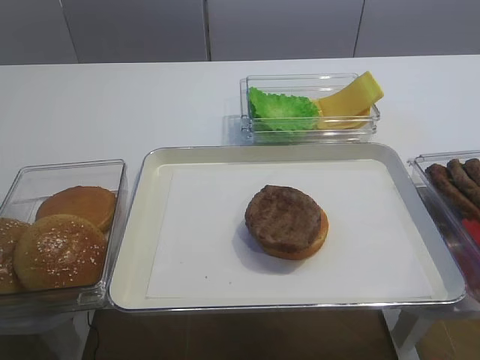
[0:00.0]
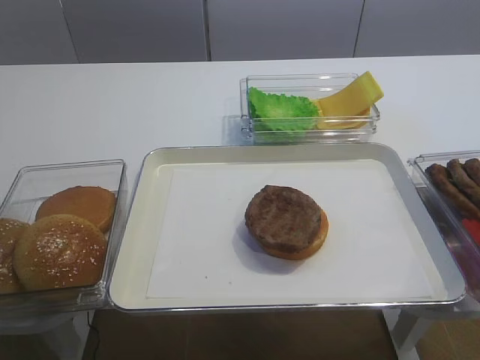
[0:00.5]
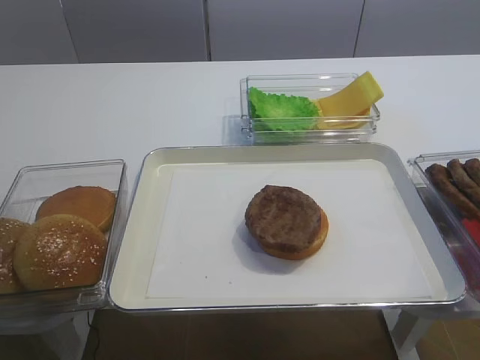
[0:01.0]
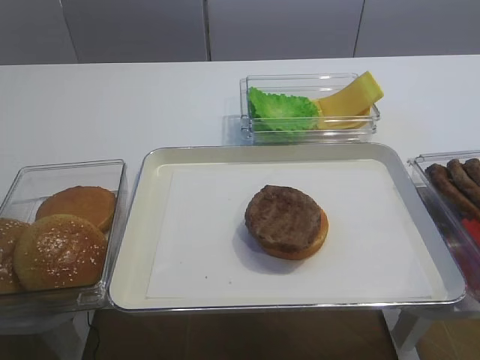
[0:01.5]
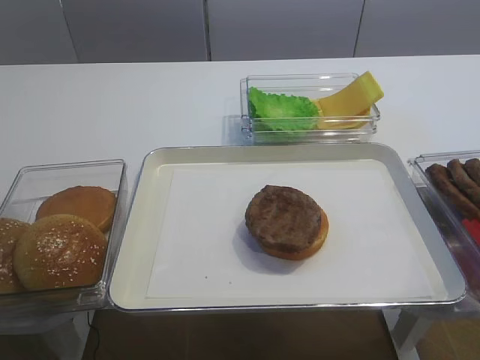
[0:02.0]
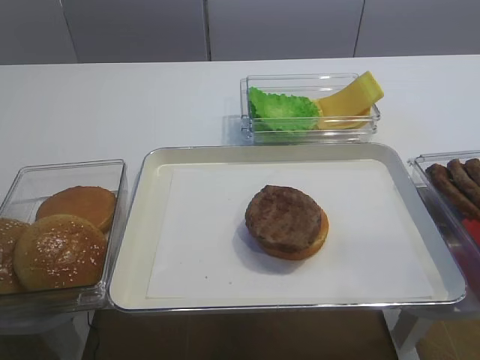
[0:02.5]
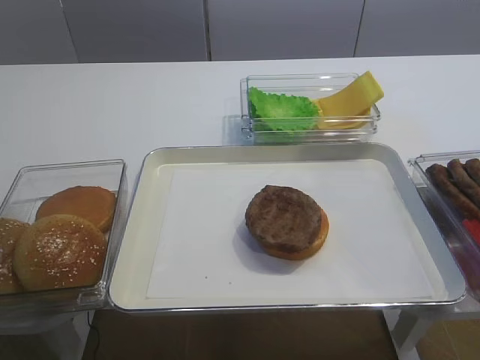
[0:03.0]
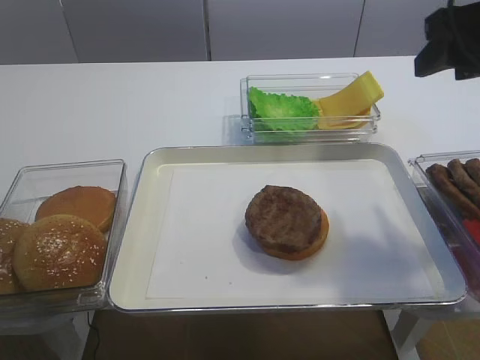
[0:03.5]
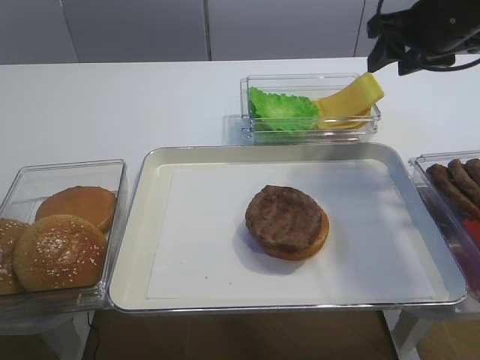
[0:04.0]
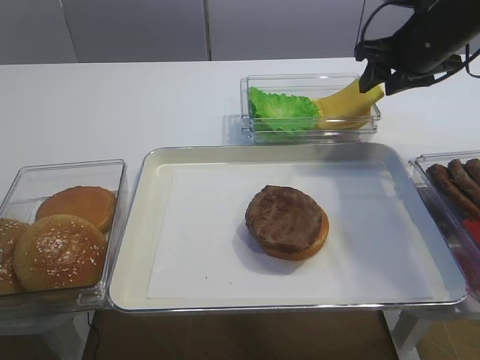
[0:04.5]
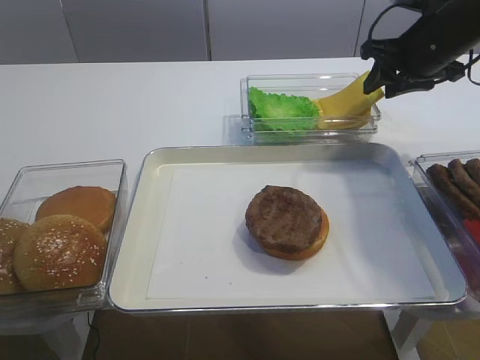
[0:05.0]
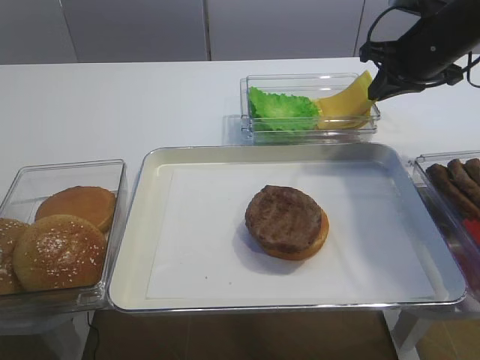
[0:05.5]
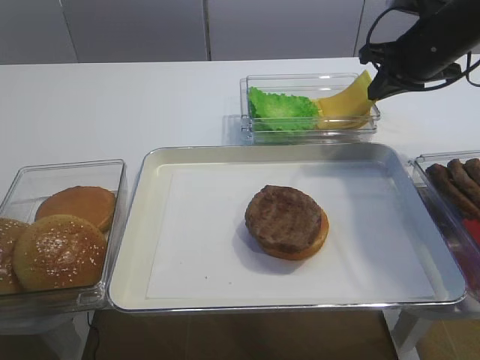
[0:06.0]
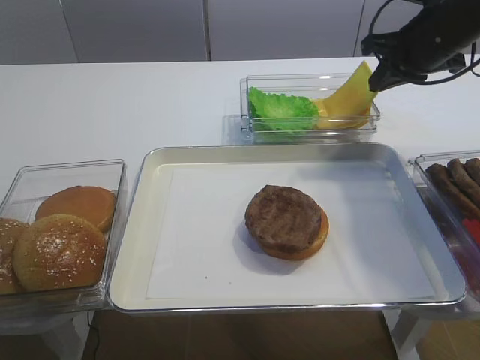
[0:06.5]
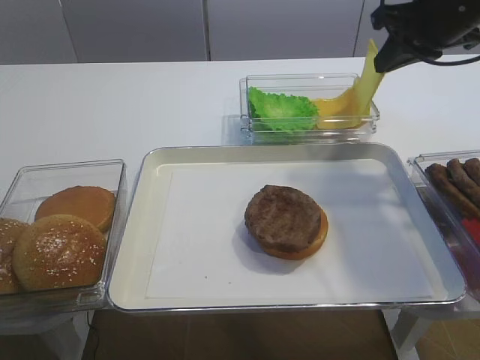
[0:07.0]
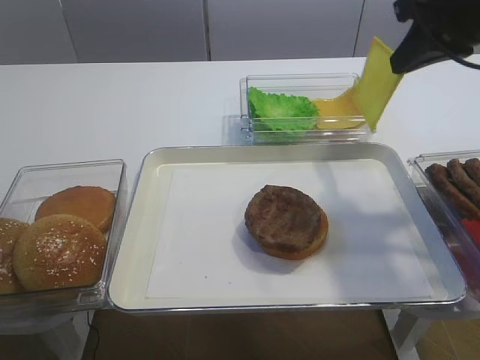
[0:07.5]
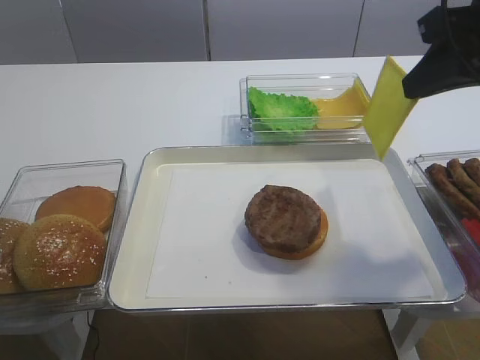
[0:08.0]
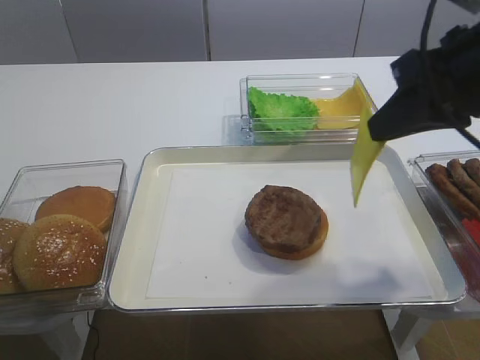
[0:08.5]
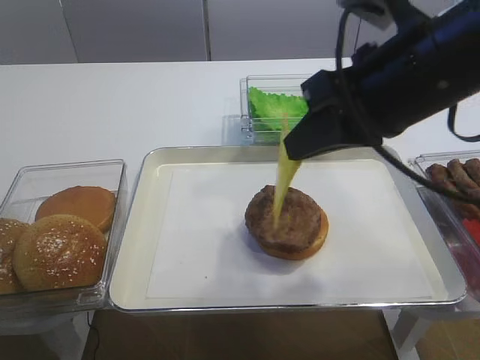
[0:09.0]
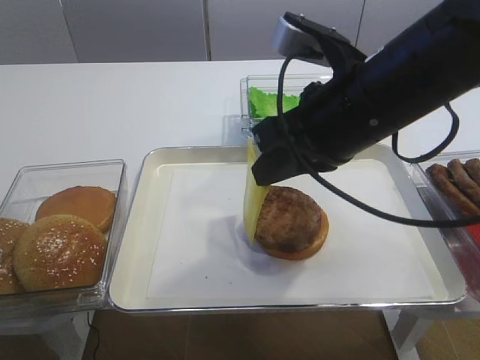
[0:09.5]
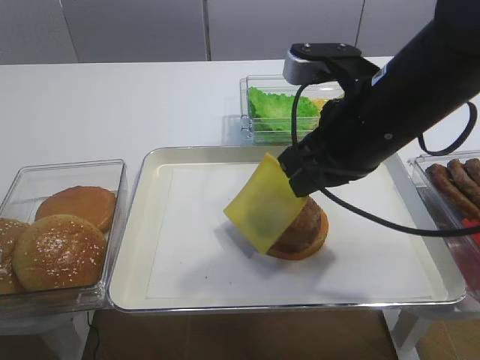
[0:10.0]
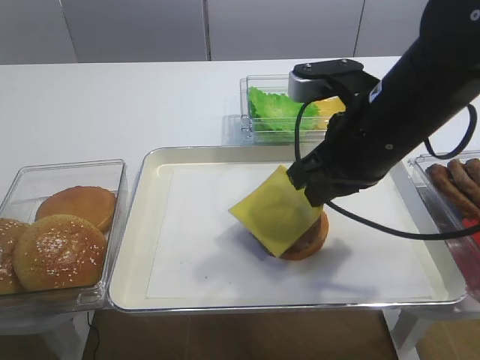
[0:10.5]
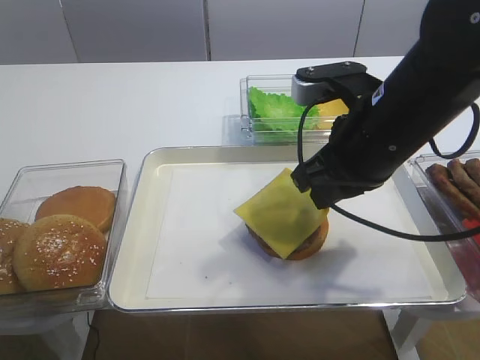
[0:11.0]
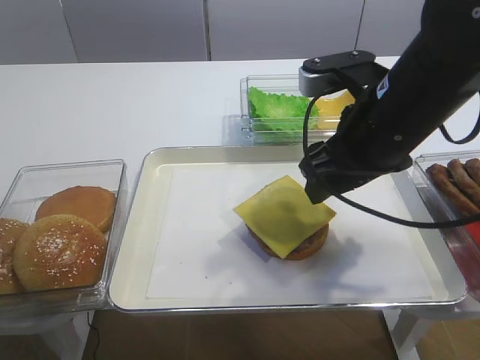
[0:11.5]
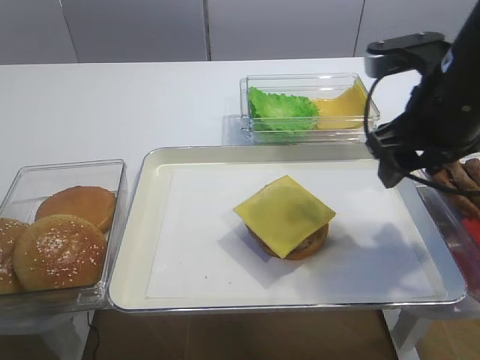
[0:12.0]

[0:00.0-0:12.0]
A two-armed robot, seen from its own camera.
Step, 0:00.0 to 0:06.0: Pick up the cheese slice with the right gripper.
Step, 0:07.0 to 0:11.0: Place the cheese slice on the cutlet with the right gripper.
0:02.0 to 0:04.0: The right gripper shifts approximately 40 cm forward.
0:04.0 to 0:06.0: The right gripper moves approximately 5 cm, and closes.
0:06.0 to 0:08.0: The right gripper travels backward and upward by some 15 cm.
0:08.0 to 0:10.0: The right gripper goes roughly 15 cm to the left and downward.
0:10.0 to 0:12.0: The right gripper moves to the right, some 10 cm, and opens its fingers.

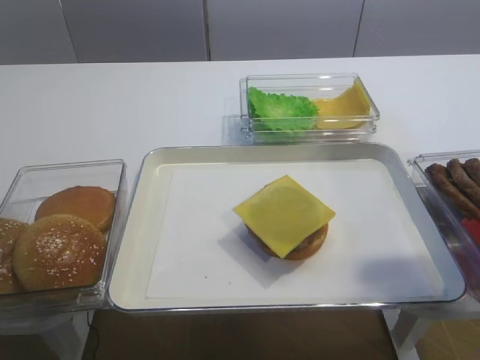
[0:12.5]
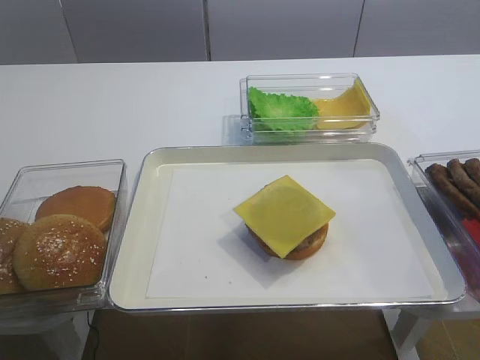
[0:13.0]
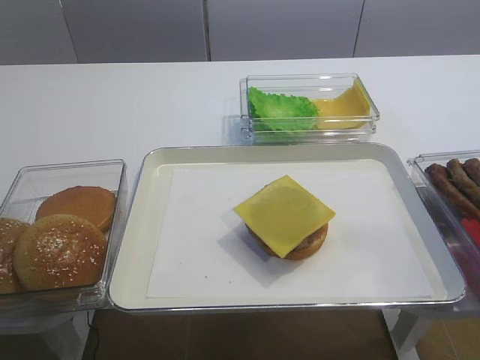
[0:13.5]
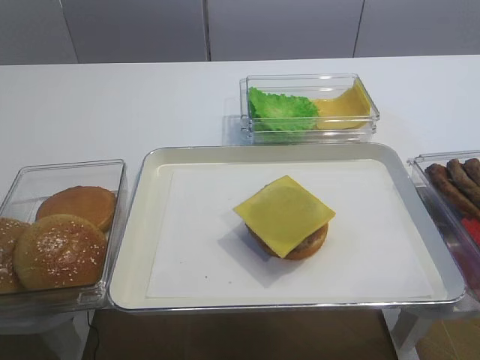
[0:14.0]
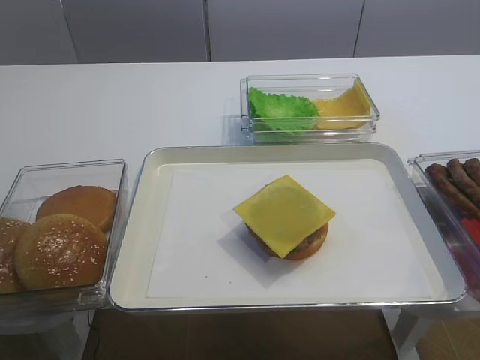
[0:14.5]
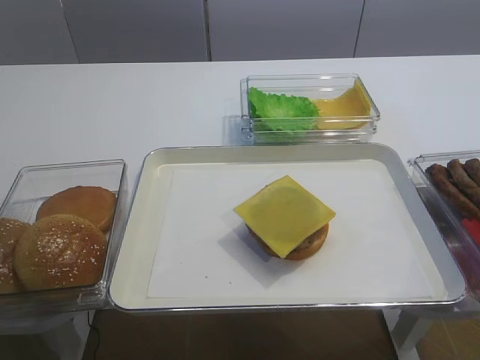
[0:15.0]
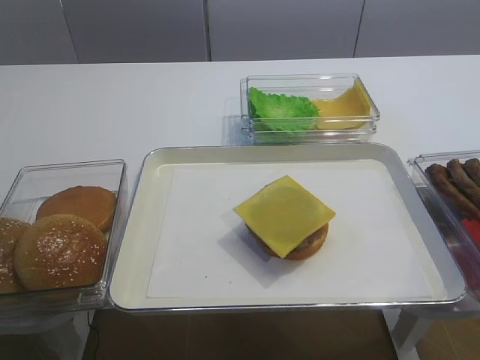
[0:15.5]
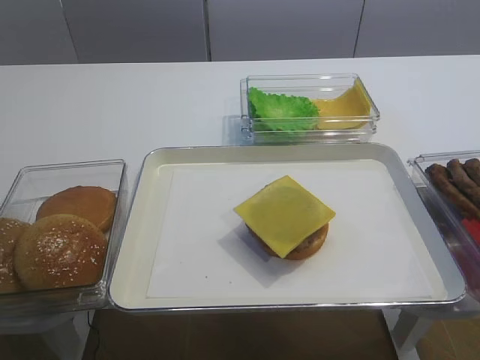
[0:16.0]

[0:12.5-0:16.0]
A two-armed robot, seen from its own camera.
0:12.5 to 0:14.5: The right gripper is displaced backward by some 25 cm.

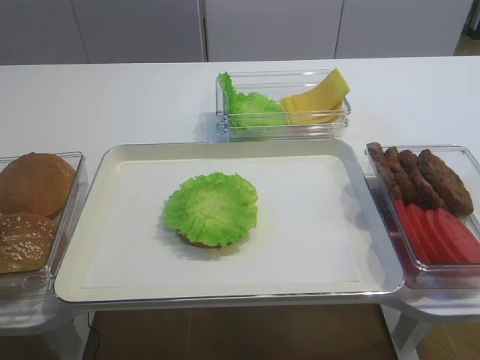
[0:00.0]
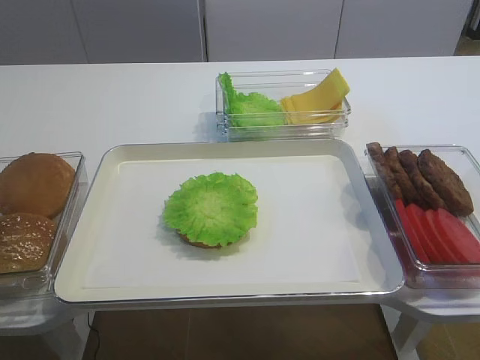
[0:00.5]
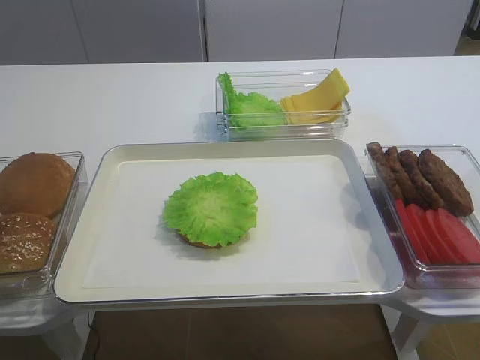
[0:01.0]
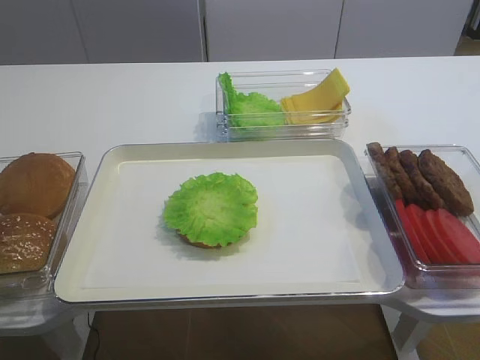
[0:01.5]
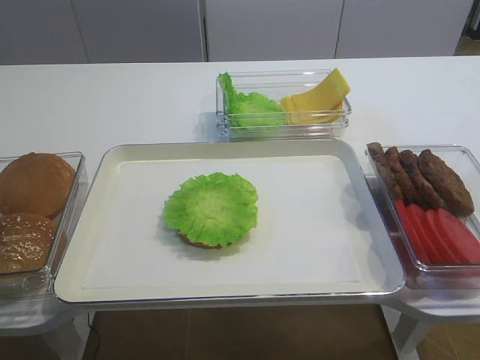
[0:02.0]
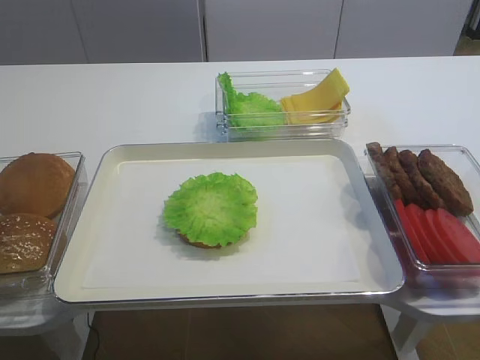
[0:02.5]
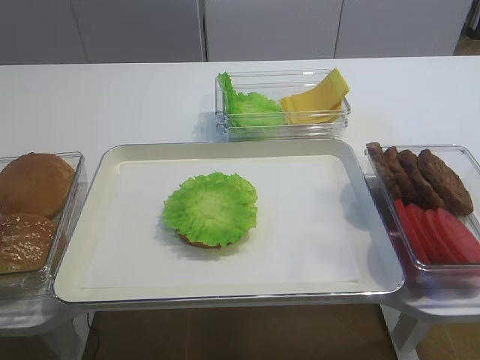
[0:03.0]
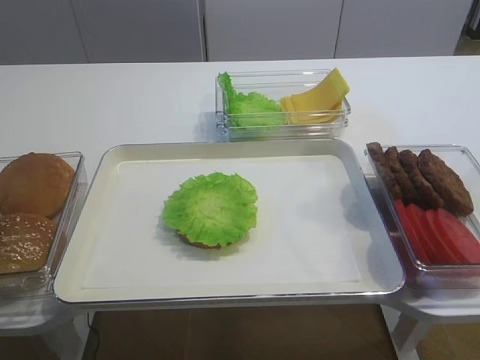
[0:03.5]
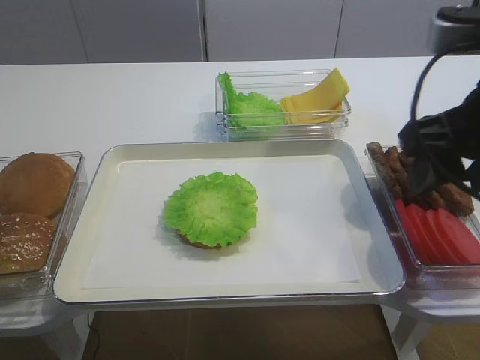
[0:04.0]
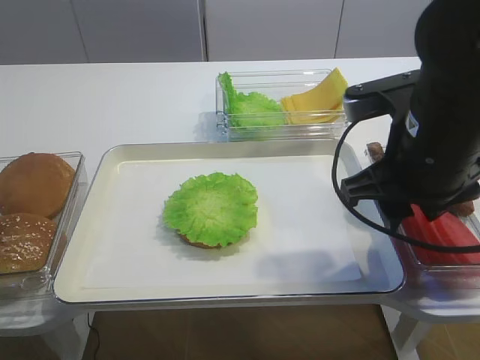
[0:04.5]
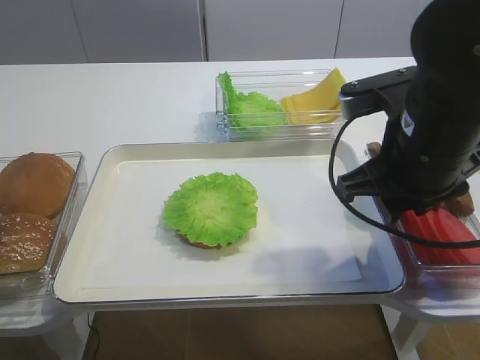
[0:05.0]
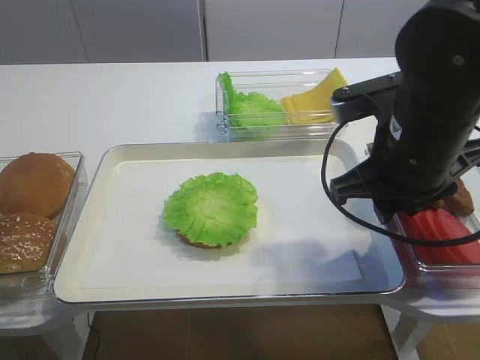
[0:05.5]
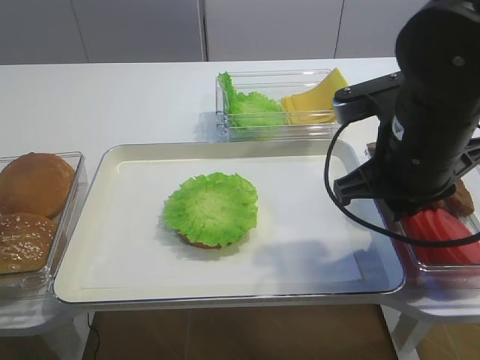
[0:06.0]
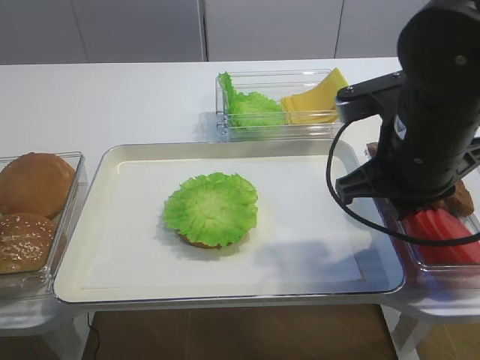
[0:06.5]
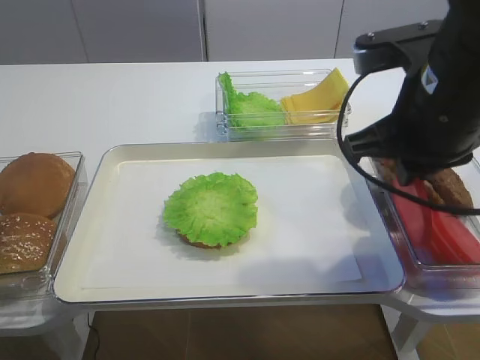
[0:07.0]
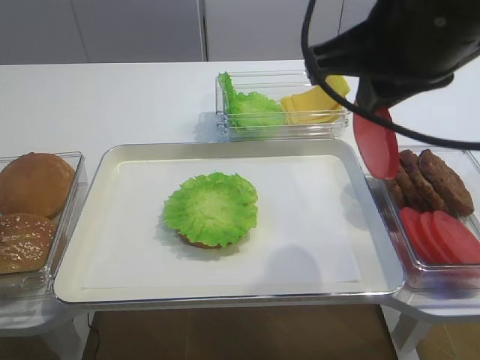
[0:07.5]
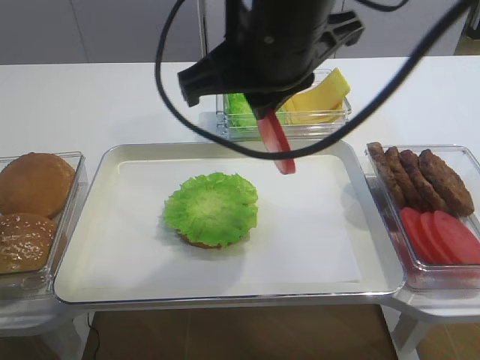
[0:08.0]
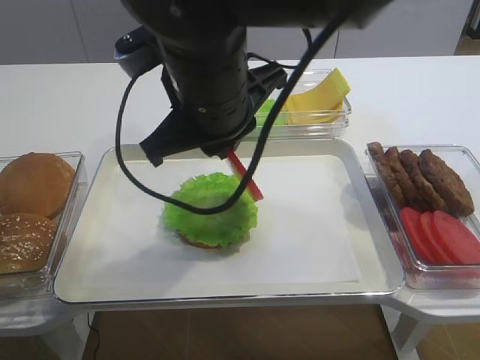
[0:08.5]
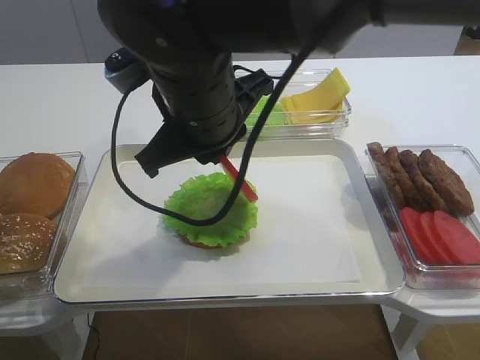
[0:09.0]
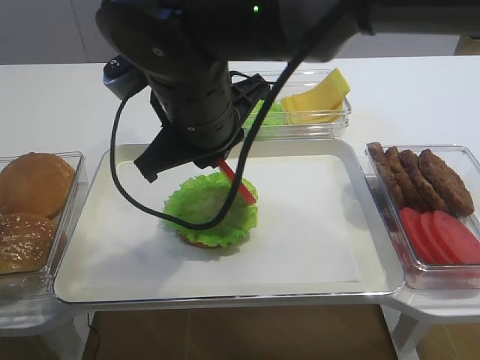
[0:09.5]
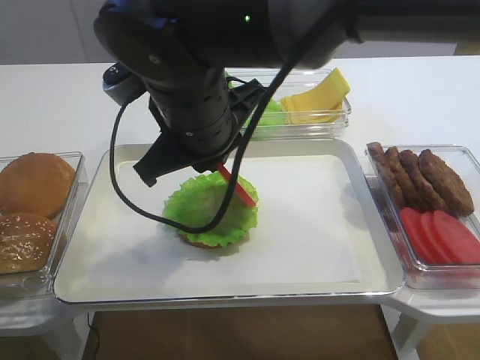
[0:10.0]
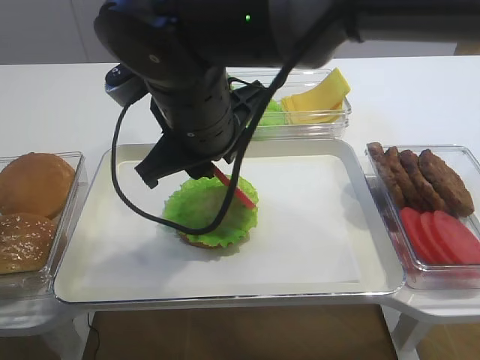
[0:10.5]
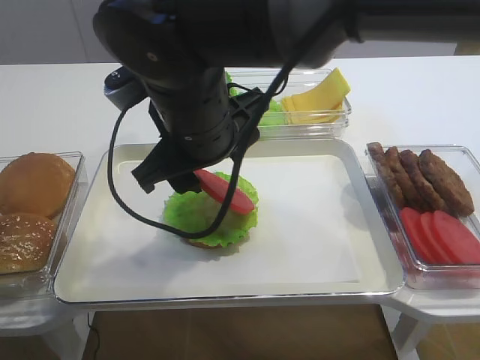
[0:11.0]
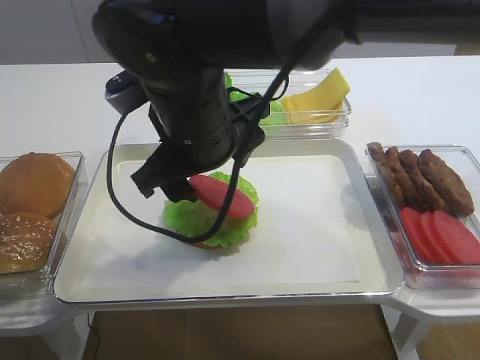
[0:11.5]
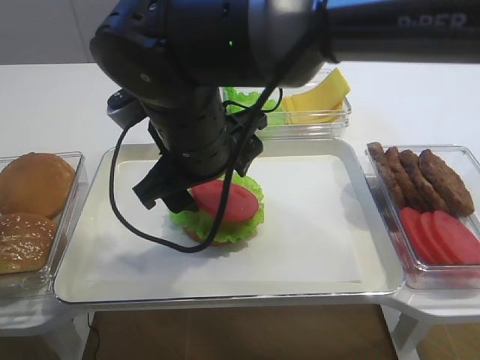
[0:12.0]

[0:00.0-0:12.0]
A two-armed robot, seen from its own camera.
Step, 0:00.0 to 0:07.0: Pick up the tomato slice with the right gripper.
0:02.0 to 0:04.0: The right gripper travels forward and to the left by roughly 20 cm.
0:04.0 to 0:06.0: The right gripper is displaced downward by roughly 5 cm, and closes up.
0:06.0 to 0:08.0: The right gripper travels to the left and upward by approximately 15 cm.
0:08.0 to 0:10.0: The right gripper heads downward and to the left, covering some 10 cm.
0:10.0 to 0:12.0: The right gripper opens up.
